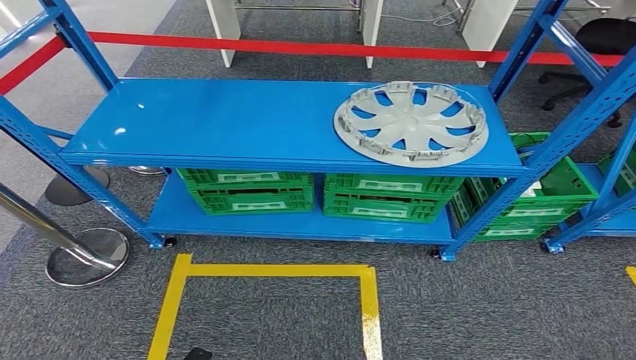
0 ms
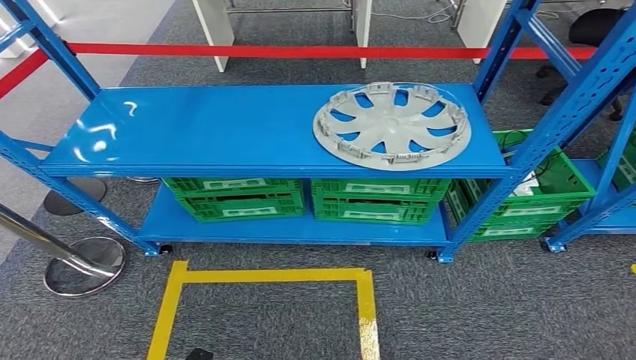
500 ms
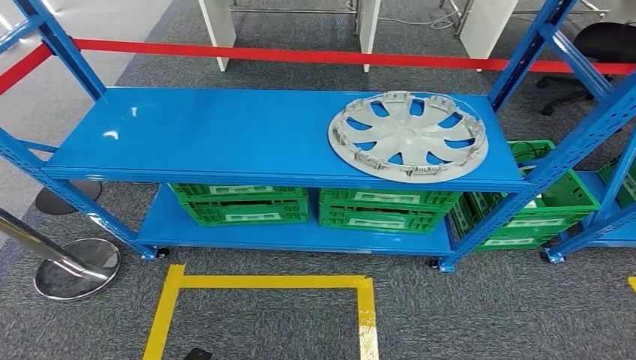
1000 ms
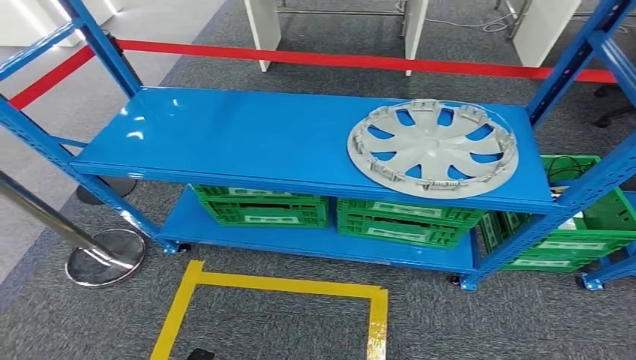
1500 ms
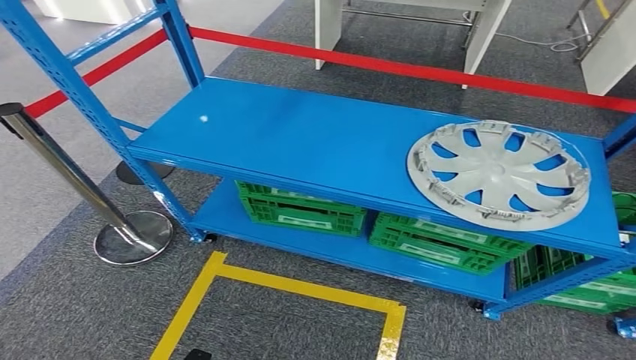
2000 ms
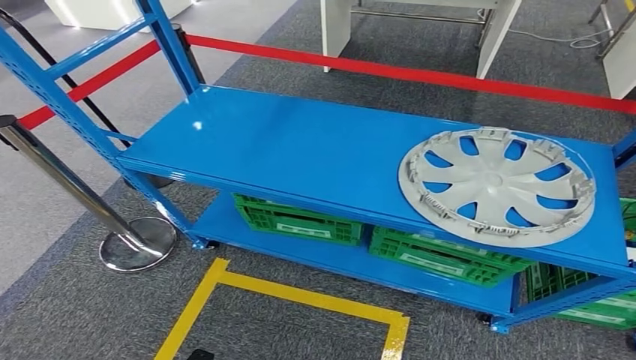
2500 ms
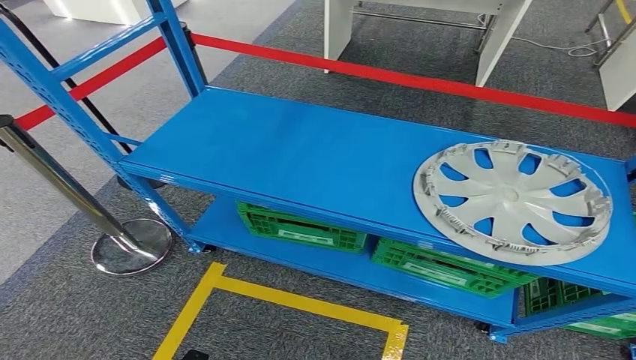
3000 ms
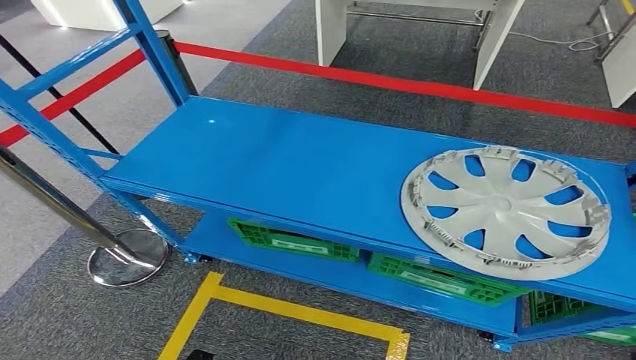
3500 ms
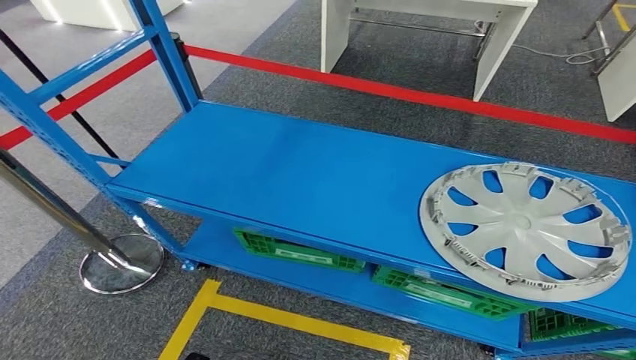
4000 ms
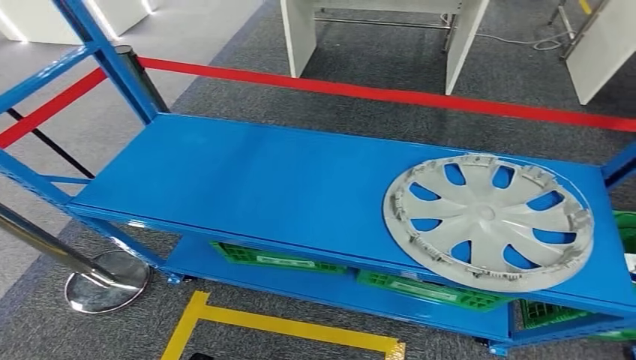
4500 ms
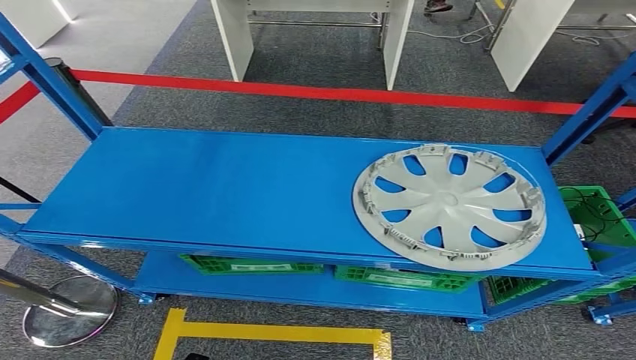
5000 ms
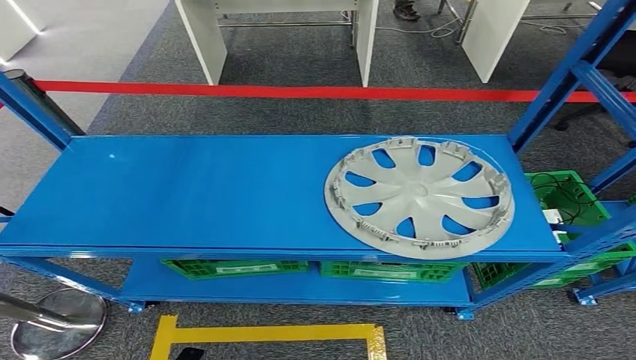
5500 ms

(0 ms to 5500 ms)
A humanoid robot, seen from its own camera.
Step, 0 ms - 5500 ms: Move to the initial position of the workbench.
